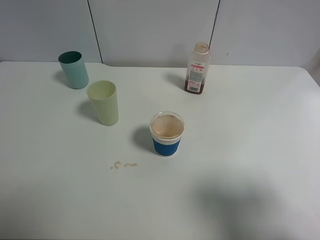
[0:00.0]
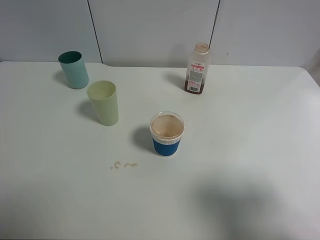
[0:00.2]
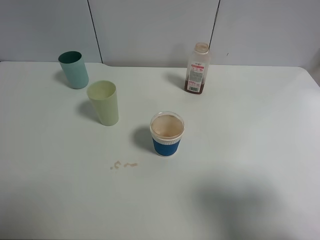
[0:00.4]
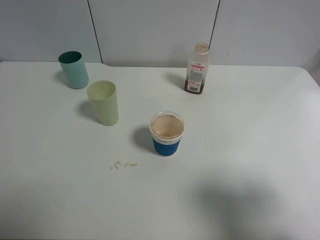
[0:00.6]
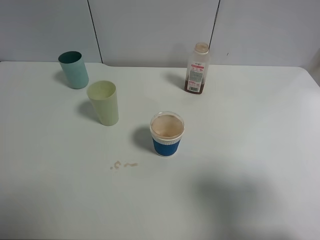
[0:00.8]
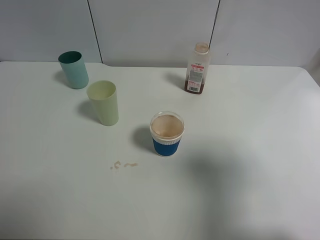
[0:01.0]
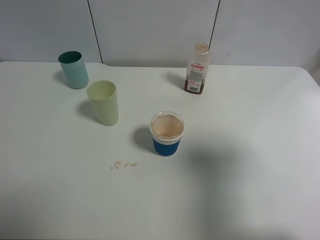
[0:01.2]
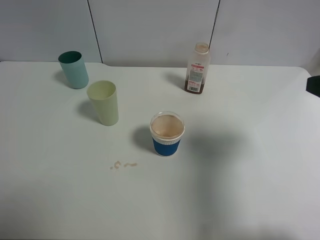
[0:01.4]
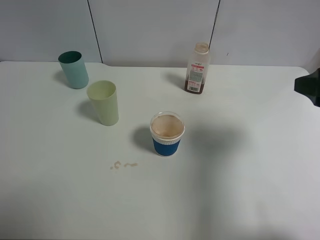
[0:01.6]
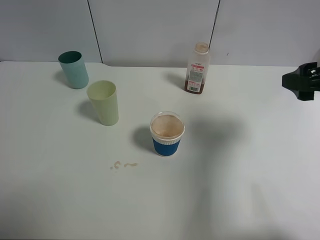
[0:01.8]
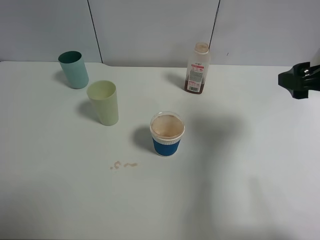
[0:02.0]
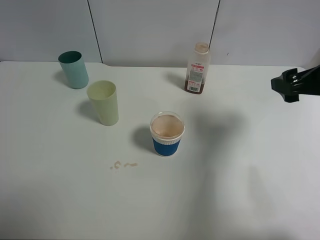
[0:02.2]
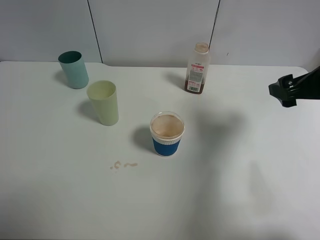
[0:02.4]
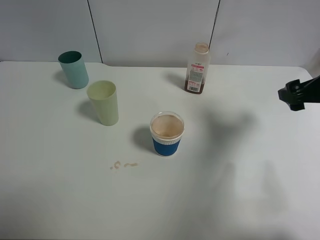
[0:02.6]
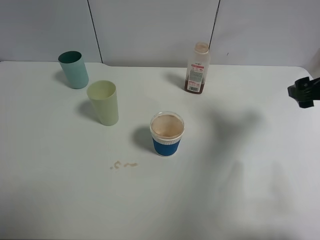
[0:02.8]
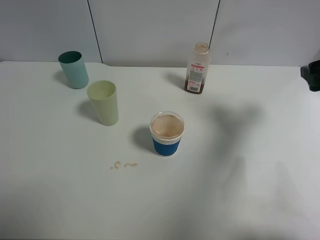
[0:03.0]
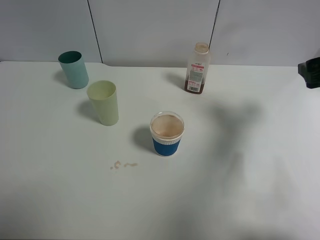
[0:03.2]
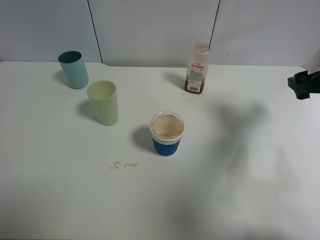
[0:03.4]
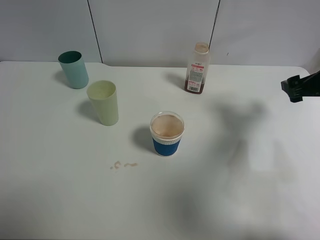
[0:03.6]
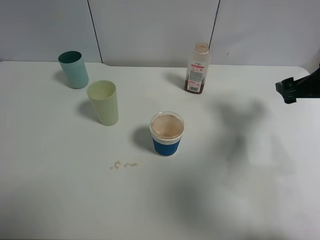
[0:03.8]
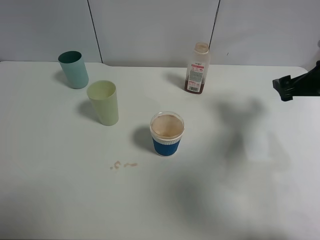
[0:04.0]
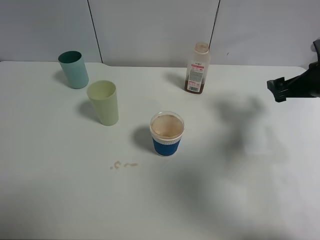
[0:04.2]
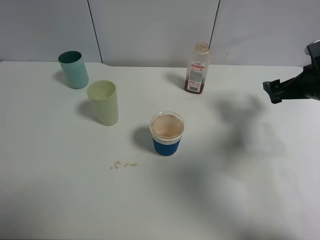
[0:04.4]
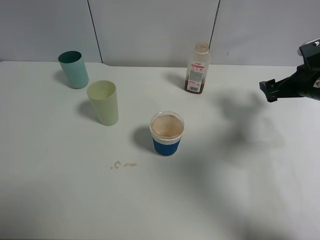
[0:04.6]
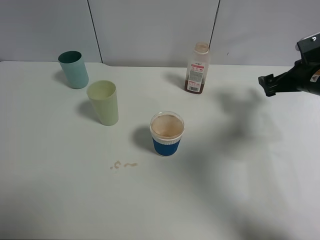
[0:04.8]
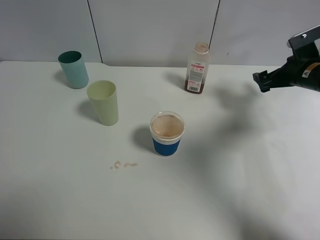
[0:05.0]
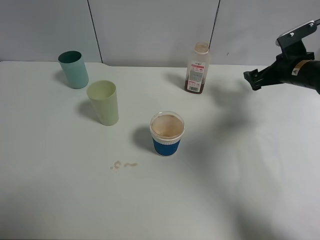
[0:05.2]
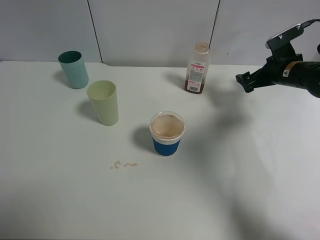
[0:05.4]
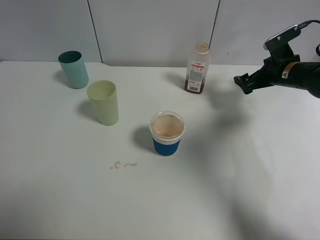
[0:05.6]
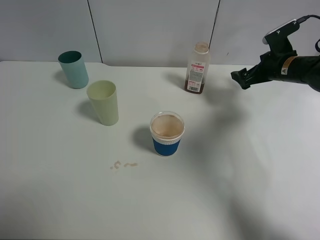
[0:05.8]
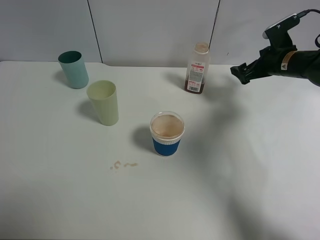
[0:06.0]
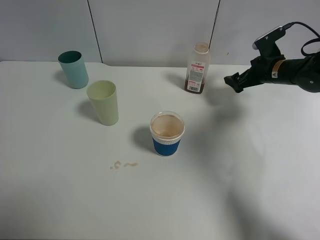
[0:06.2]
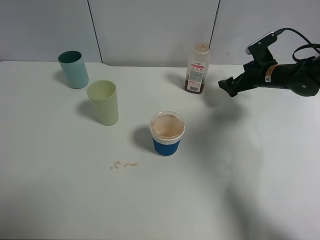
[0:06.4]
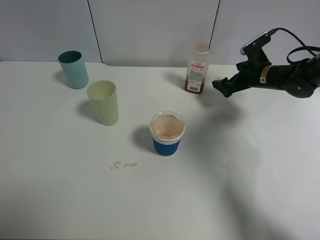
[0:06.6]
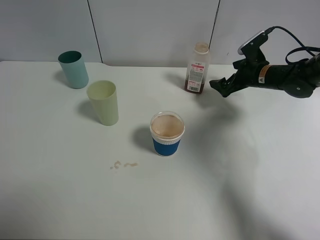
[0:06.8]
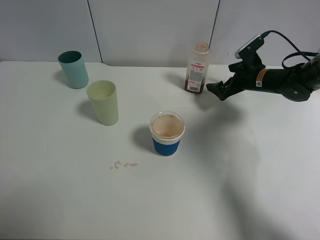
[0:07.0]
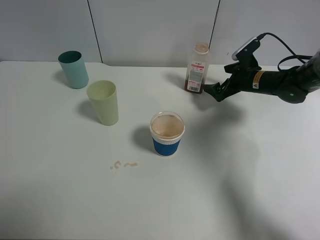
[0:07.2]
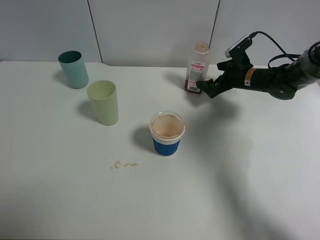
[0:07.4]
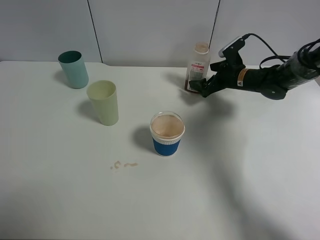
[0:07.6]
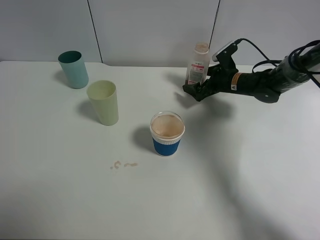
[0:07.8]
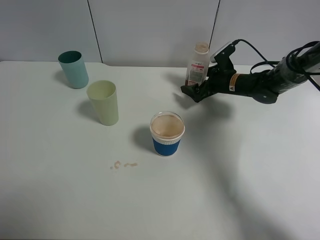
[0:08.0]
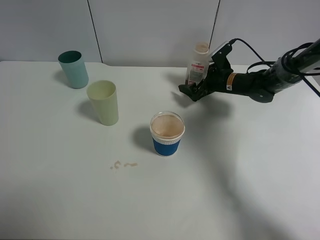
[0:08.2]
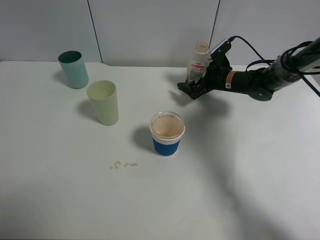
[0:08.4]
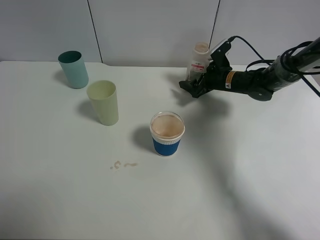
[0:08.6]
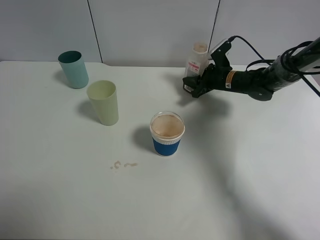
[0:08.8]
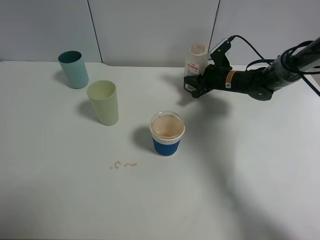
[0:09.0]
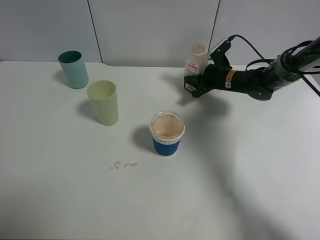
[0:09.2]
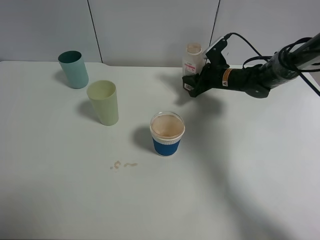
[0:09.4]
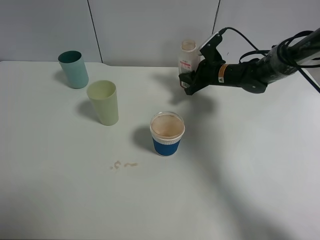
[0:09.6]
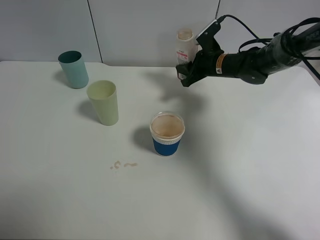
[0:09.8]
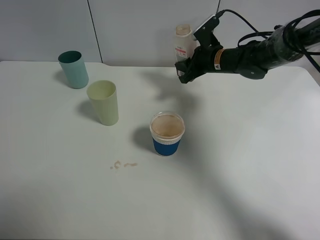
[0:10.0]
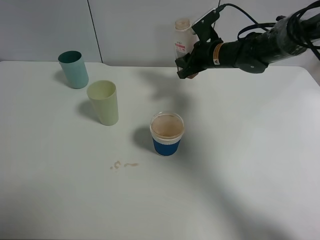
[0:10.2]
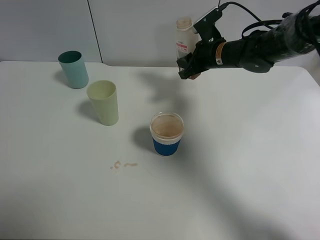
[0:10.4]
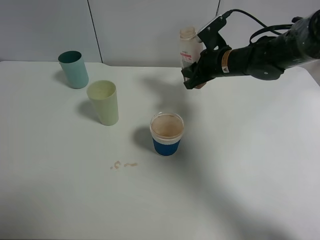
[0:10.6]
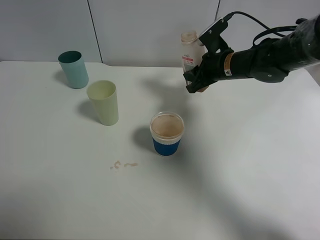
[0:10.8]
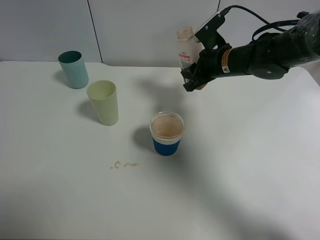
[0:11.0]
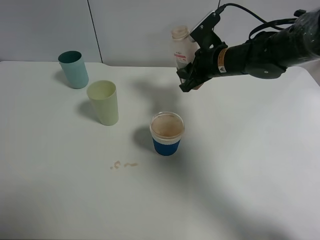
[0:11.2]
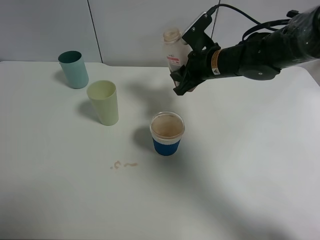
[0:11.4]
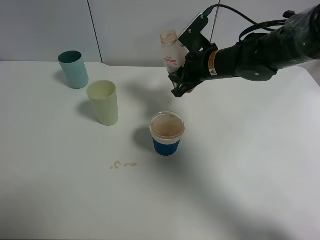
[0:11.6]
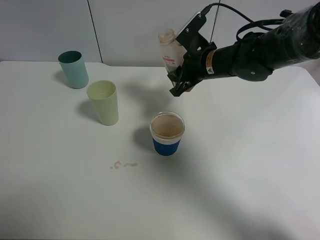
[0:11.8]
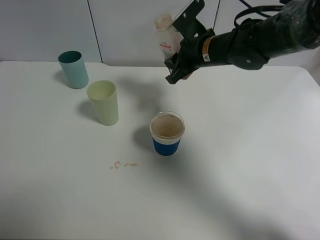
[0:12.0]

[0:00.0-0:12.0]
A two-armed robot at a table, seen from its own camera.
Task of the whole recording: use a clamp to hold the bottle of the drink, pour the beverage into a random cup, then clamp the cup containing the drink and pour the drink into another random cup.
Step, 0:00.0 to 0:09.8: Pick up the drink bottle with right gripper.
0:00.0 to 0:01.6: The right gripper shifts about 15 cm forward.
0:01.6 to 0:03.0: The right gripper moves forward and to the right, roughly 10 cm.
0:03.0 to 0:04.4: The right gripper heads downward and forward, covering approximately 10 cm.
0:04.4 to 0:06.0: The right gripper shifts approximately 10 cm forward.
0:06.0 to 0:07.6: The right gripper shifts approximately 10 cm to the left and downward.
0:07.6 to 0:09.0: The right gripper closes up.
0:09.0 to 0:10.4: The right gripper travels upward and to the left by approximately 10 cm.
0:10.4 to 0:12.0: The right gripper shifts by some 5 cm.

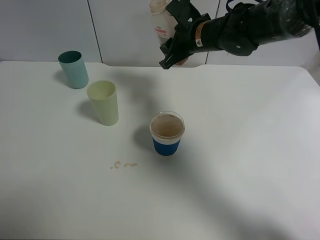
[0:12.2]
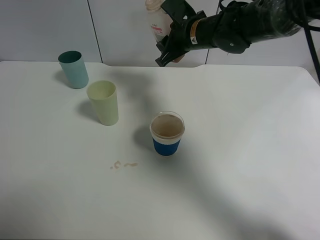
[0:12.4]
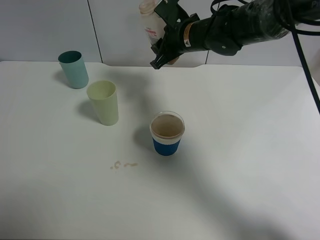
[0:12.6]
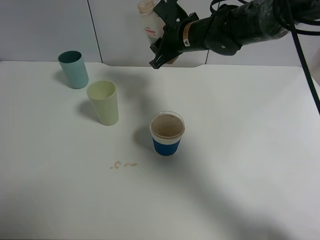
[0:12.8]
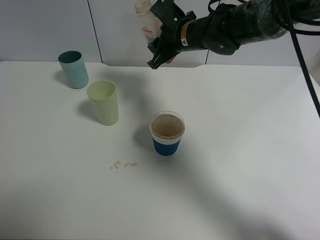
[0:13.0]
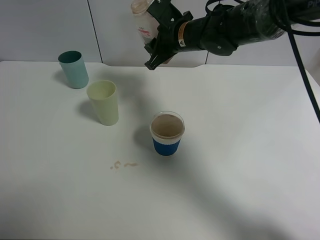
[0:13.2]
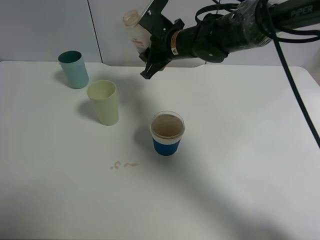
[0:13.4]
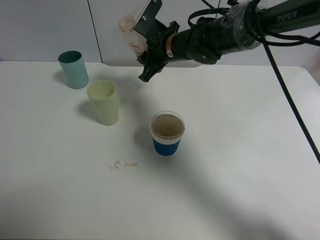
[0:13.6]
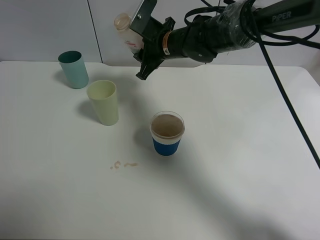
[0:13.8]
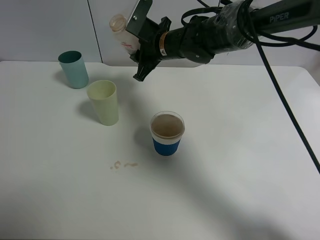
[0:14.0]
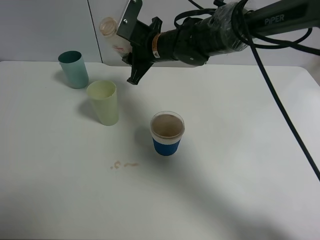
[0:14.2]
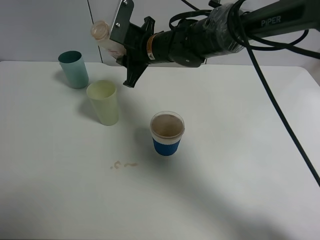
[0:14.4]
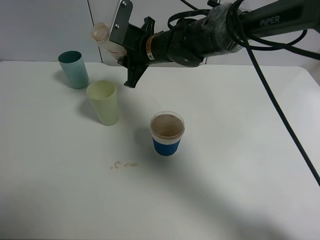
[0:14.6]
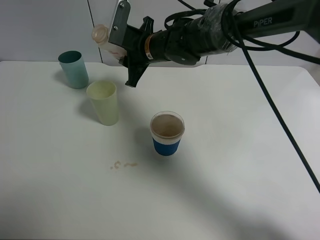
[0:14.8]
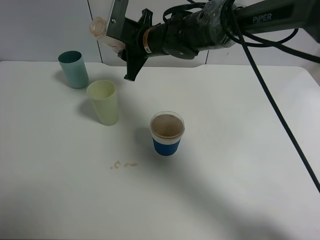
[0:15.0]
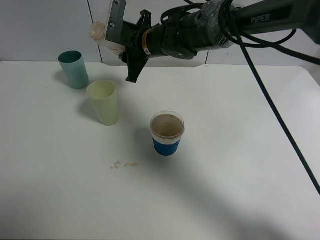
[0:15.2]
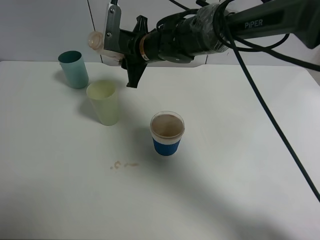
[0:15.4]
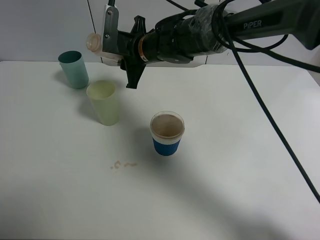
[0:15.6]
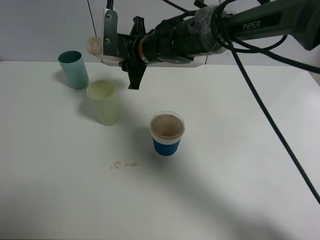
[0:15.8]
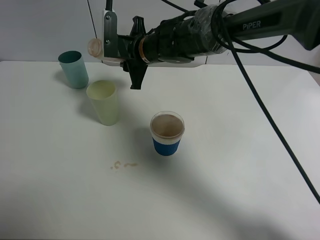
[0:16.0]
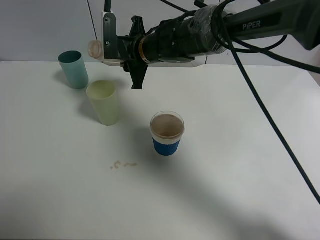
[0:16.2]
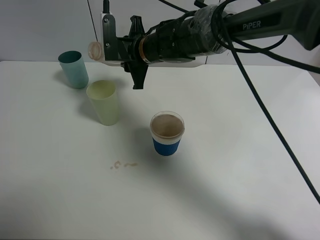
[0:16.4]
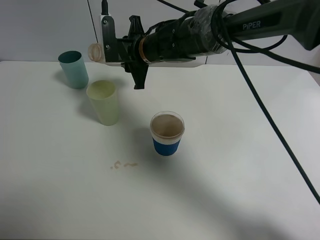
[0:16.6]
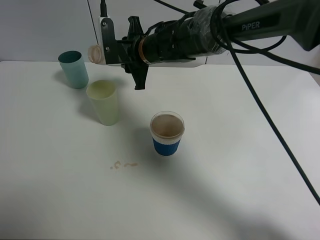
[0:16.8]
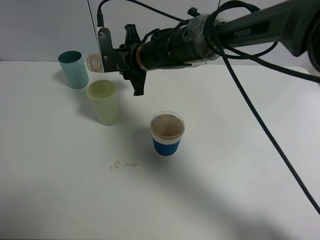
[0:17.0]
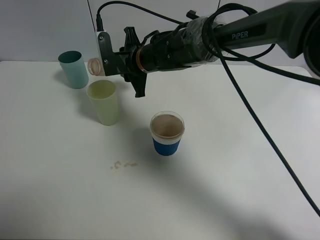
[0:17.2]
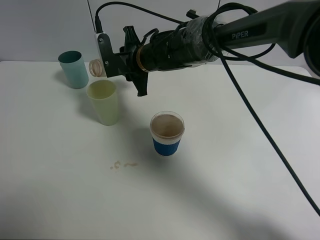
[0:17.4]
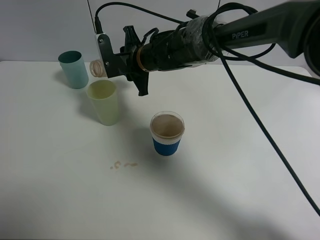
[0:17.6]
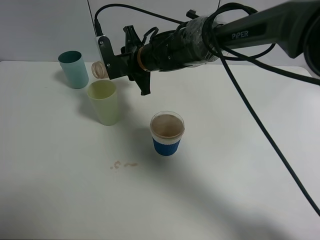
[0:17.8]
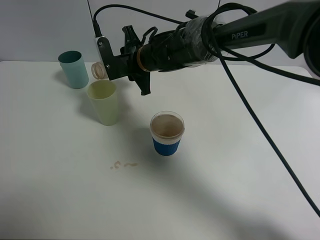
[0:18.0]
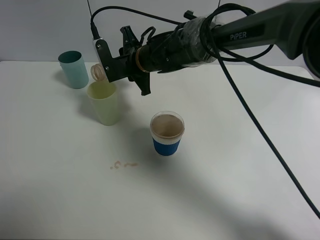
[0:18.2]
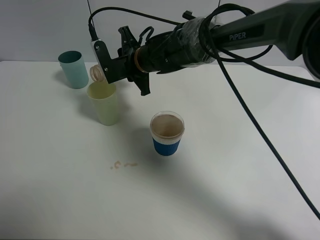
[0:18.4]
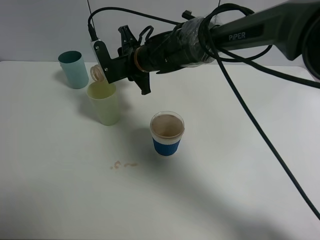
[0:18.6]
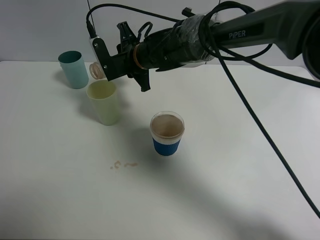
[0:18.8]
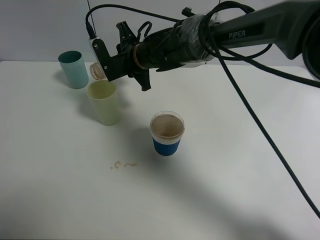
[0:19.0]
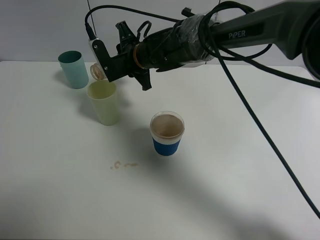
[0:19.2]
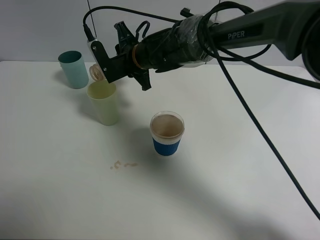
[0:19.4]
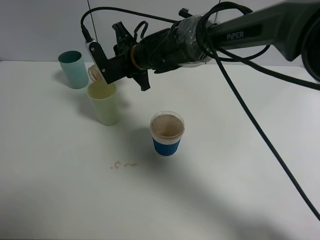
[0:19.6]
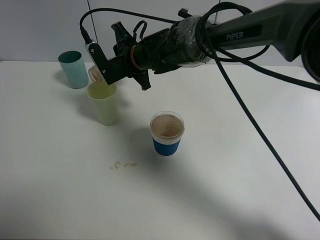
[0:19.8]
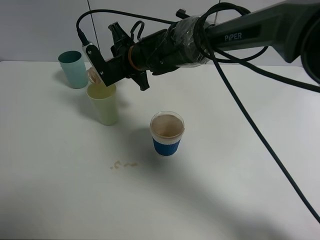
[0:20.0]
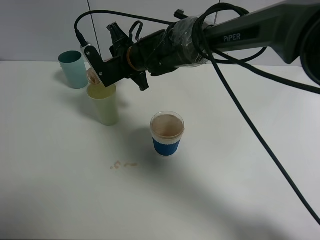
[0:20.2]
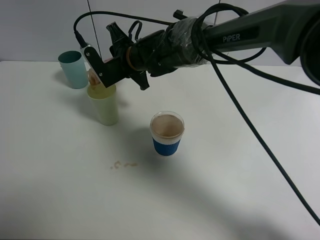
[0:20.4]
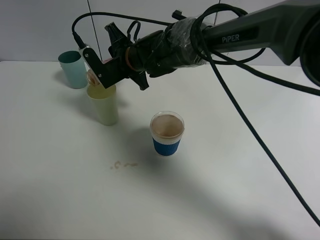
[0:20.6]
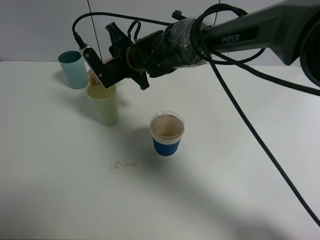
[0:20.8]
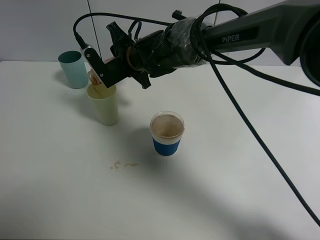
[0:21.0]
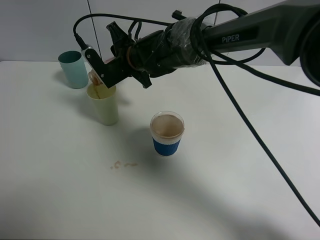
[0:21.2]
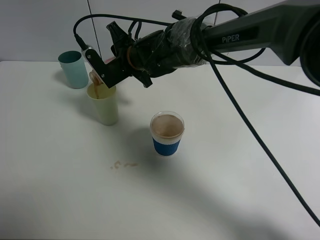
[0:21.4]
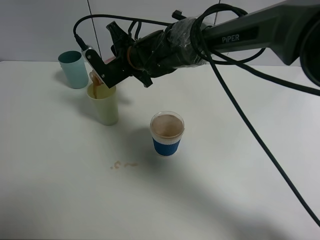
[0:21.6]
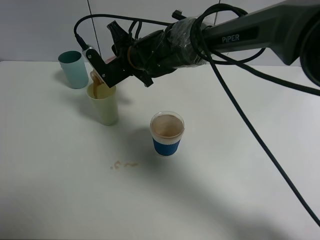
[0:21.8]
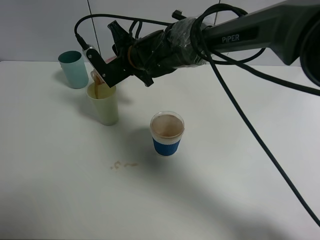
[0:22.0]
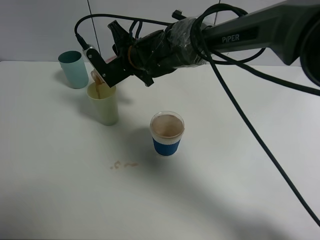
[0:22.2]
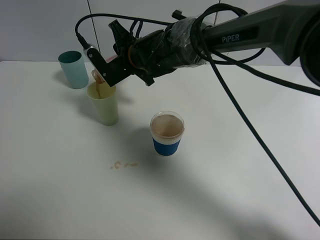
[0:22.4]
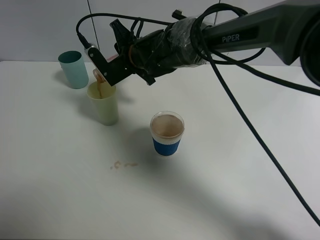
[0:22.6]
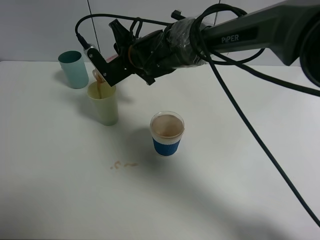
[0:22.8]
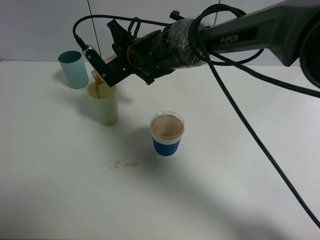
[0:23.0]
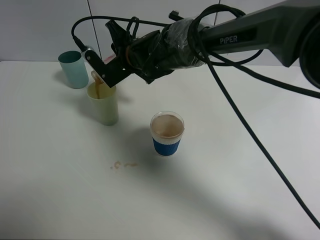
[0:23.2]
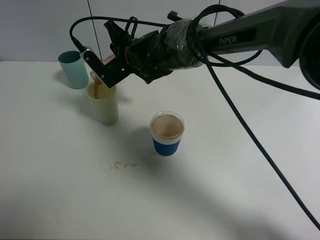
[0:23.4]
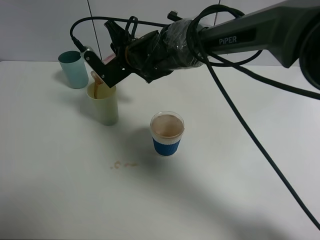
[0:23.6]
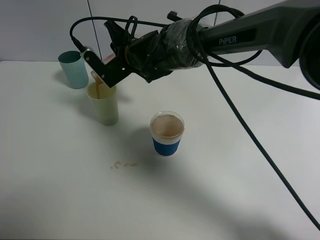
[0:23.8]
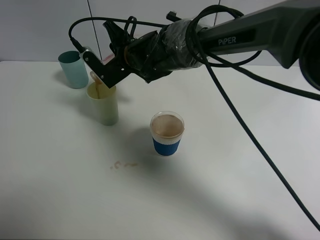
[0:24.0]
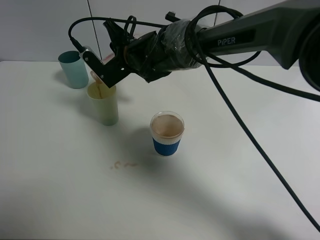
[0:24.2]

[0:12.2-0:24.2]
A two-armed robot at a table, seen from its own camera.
Task of the whole recording: use a clamp to hold the bottle of the drink, pour the beverage into a random cup, then clamp the cup containing the drink and pour the drink into another random cup.
0:12.2 to 0:13.8: The right gripper moves to the left, about 5 cm.
0:13.8 to 0:15.2: The grippers stay close to where they were, moving slightly.
0:15.2 to 0:16.6: The grippers move only a little.
0:16.6 to 0:18.2: There are only small adjustments of the grippers.
0:18.2 to 0:21.2: There are only small adjustments of the grippers.
0:21.2 to 0:22.6: The two grippers keep their place.
0:22.6 to 0:24.2: The grippers stay close to where they were, moving slightly.
